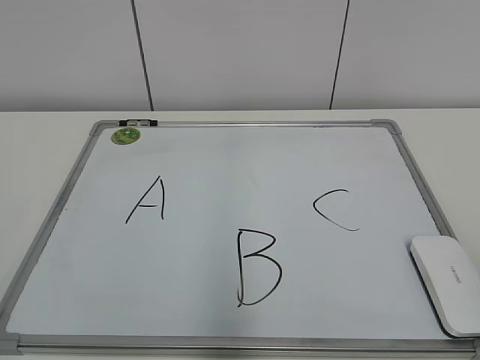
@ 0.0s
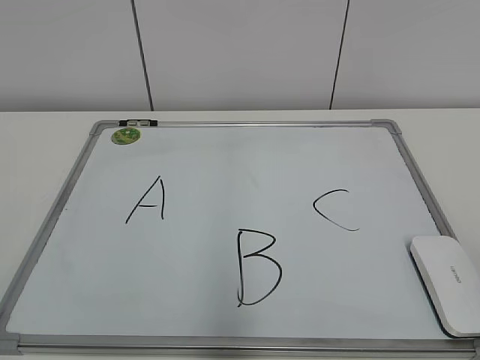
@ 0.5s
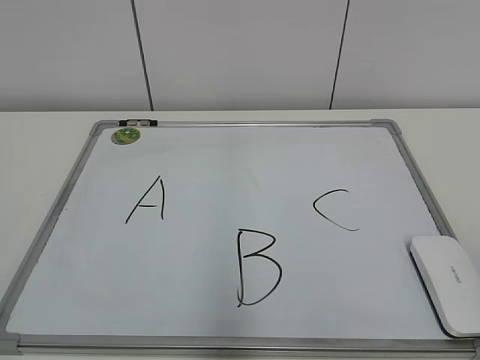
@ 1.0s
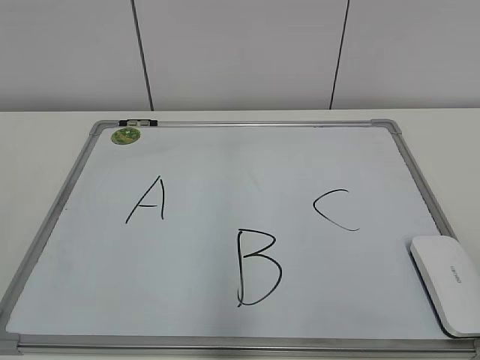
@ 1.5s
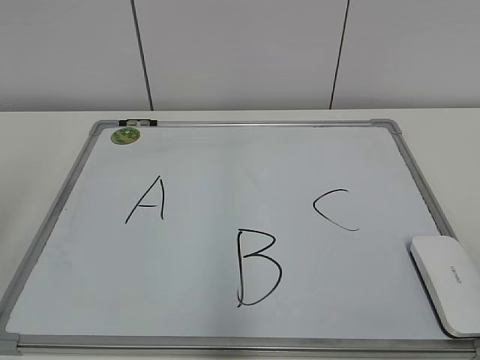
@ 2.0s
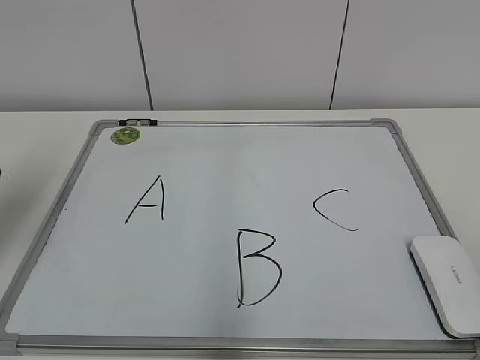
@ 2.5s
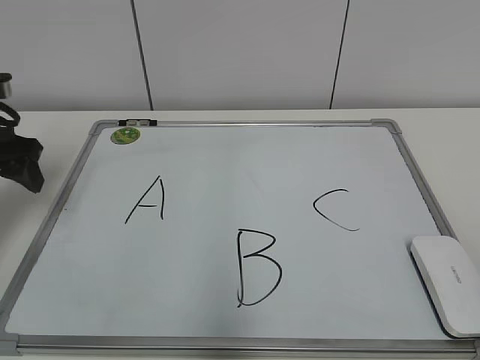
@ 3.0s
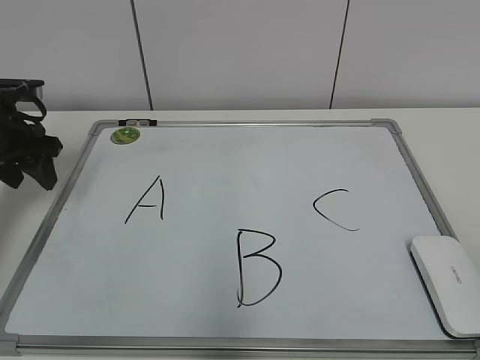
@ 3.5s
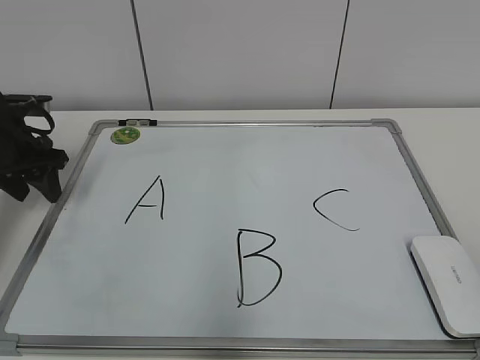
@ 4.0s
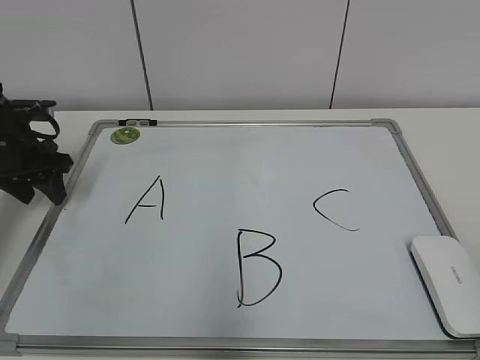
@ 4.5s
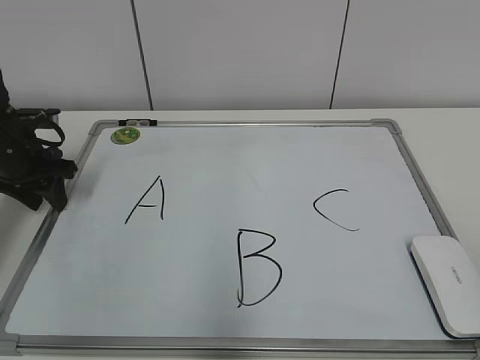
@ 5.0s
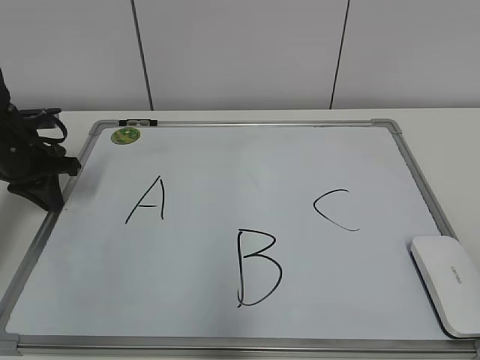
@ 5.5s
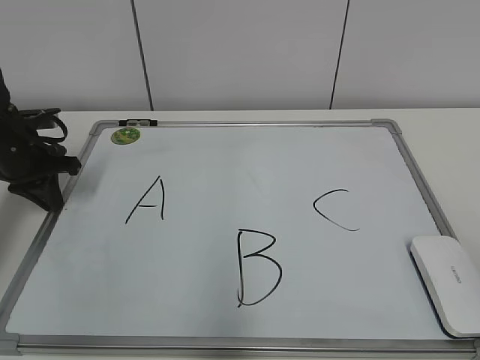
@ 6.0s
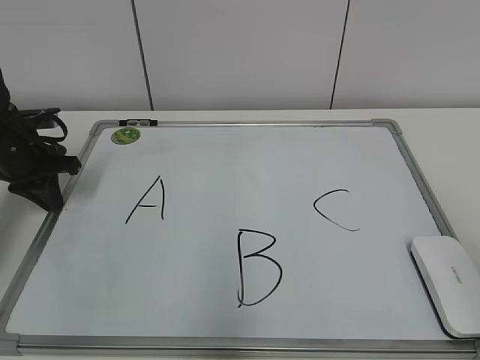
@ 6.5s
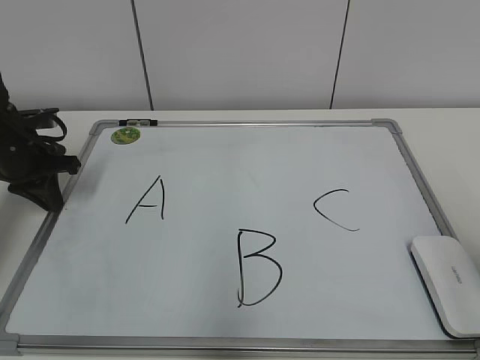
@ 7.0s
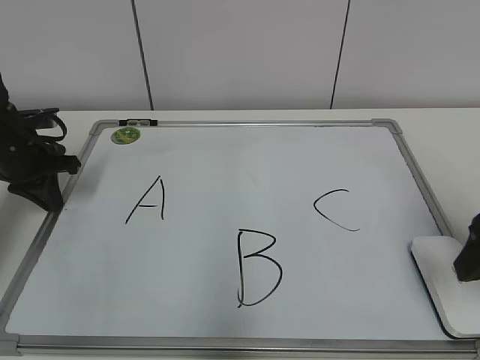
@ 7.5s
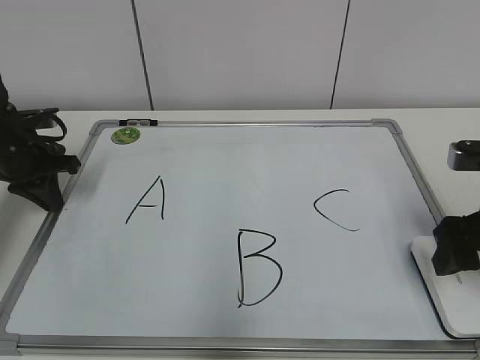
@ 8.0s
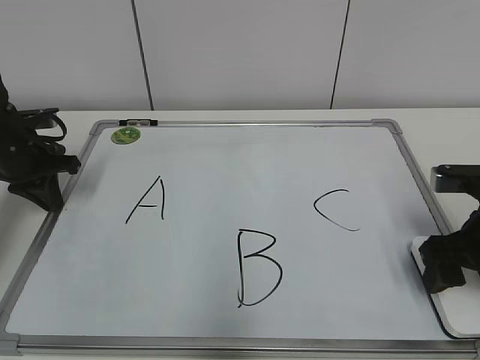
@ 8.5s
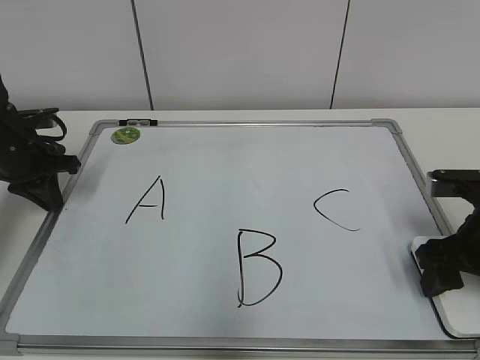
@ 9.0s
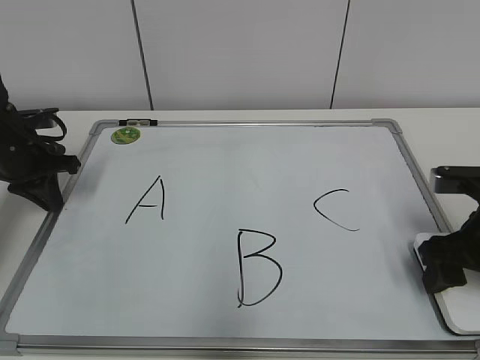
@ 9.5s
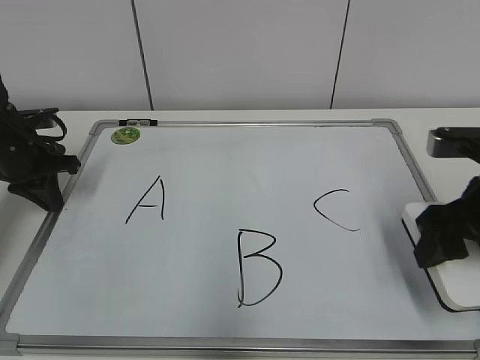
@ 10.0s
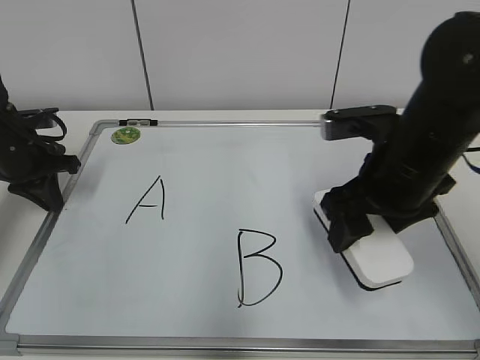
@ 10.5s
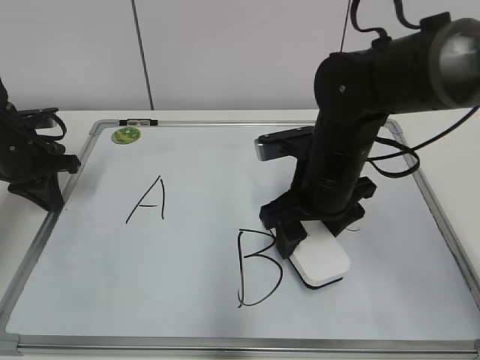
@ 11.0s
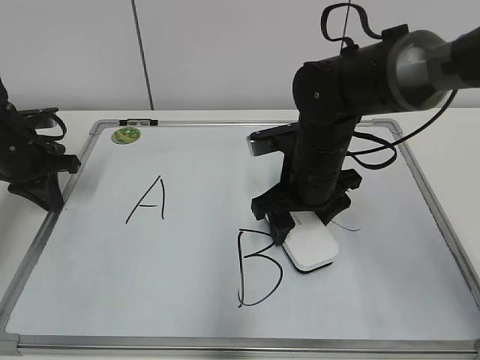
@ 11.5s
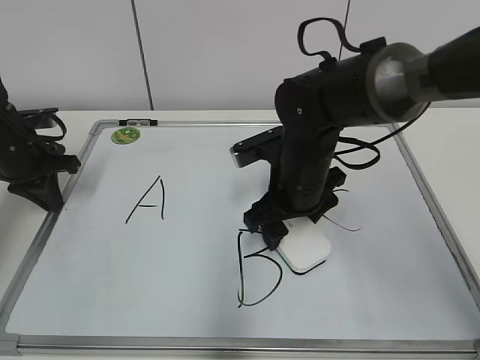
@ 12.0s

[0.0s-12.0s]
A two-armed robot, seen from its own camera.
Task of the whole recording: pick up the eraser on the blackboard and erase the letter "B".
Step, 0.0s to 6.5s: Hold the drawing board steady with your left hand.
Step, 7.0s to 9.0s: Grab the eraser with your right hand.
2.0s to 4.0s: The left gripper moves forward and downward, some 30 cm.
4.0s to 6.0s: The left gripper closes.
6.0s to 8.0s: The right gripper travels forward and downward by some 30 cm, and opens its fingers.
8.0s to 10.0s: The right gripper closes its fingers.
10.0s to 12.0s: The right gripper is displaced to the left and forward by approximately 20 cm.

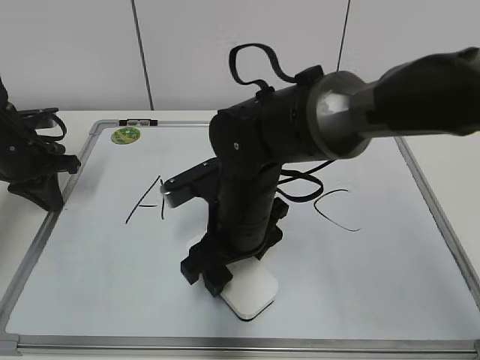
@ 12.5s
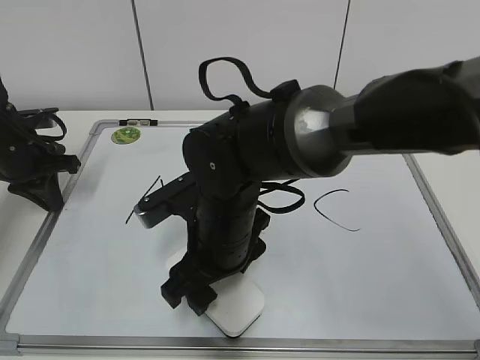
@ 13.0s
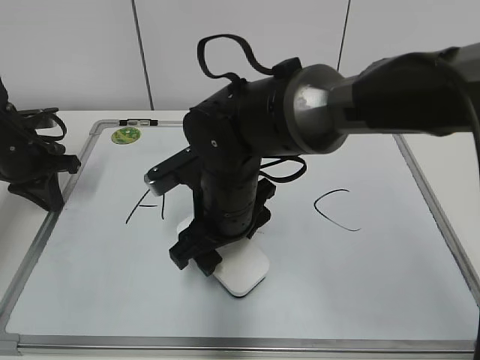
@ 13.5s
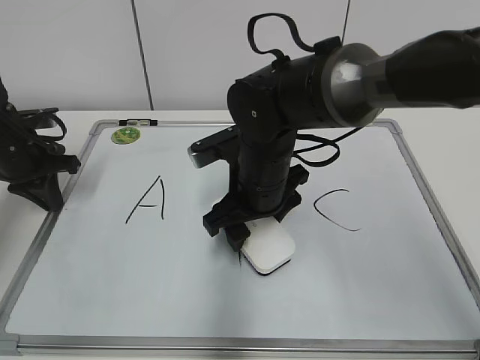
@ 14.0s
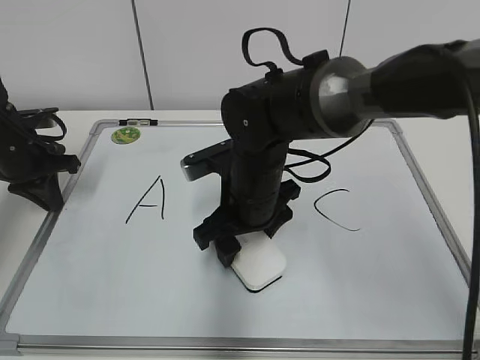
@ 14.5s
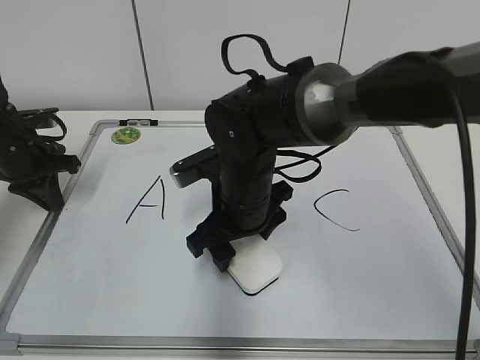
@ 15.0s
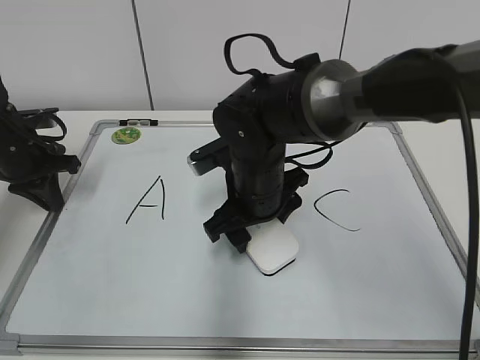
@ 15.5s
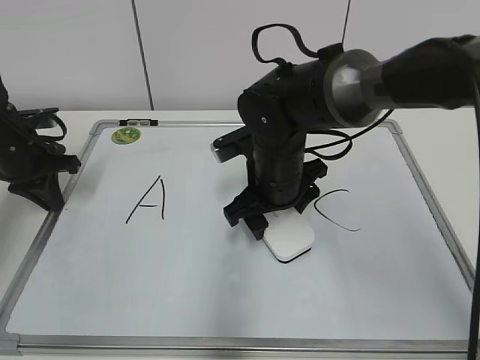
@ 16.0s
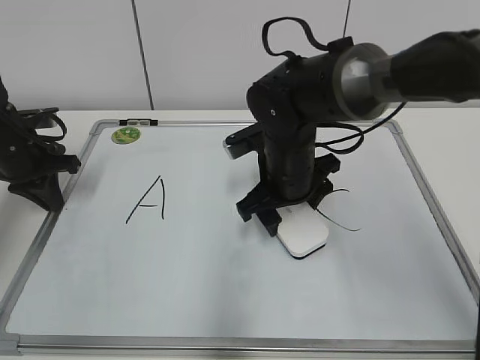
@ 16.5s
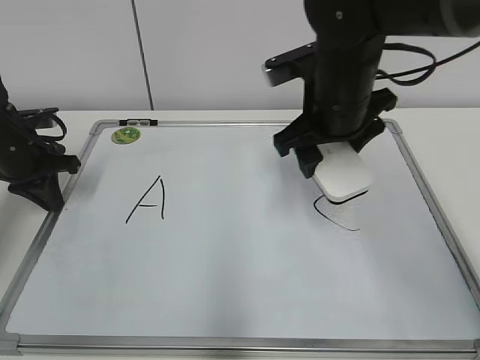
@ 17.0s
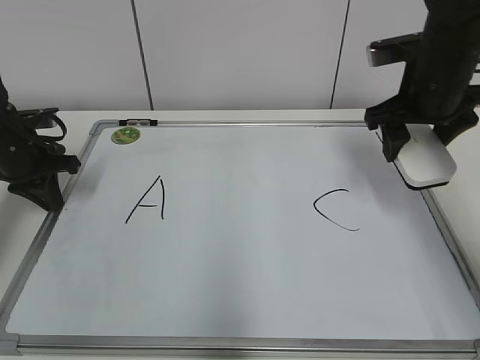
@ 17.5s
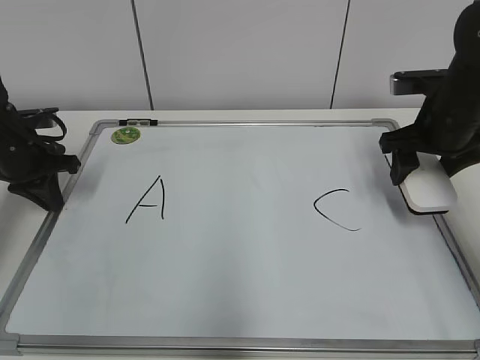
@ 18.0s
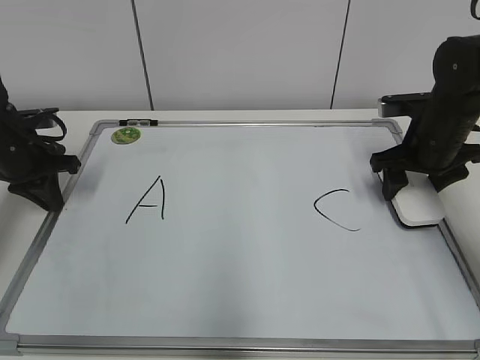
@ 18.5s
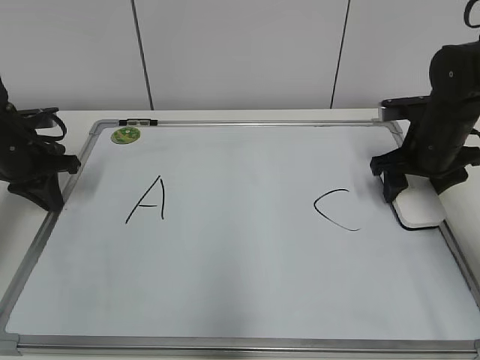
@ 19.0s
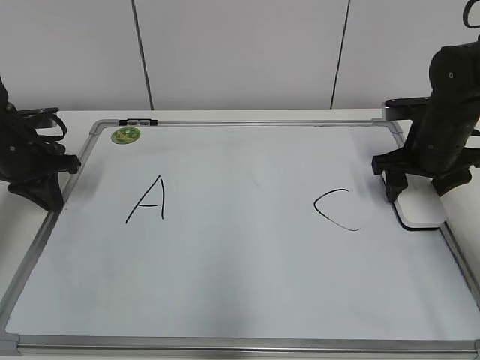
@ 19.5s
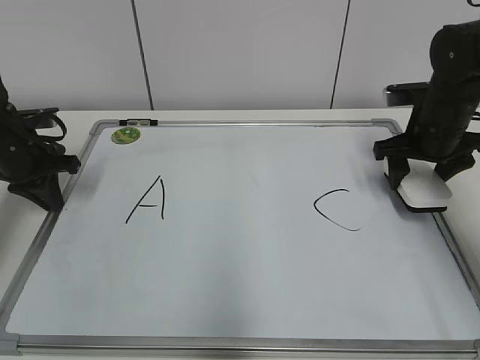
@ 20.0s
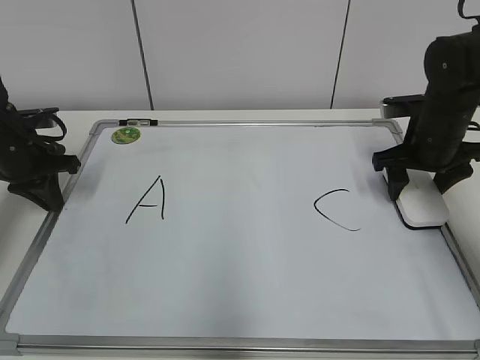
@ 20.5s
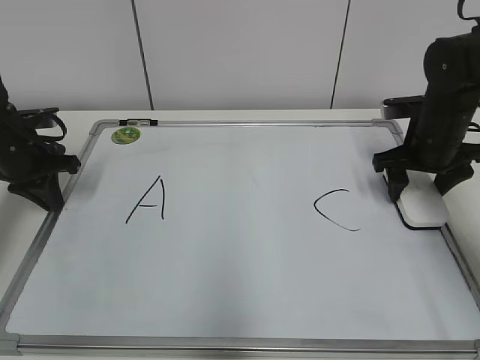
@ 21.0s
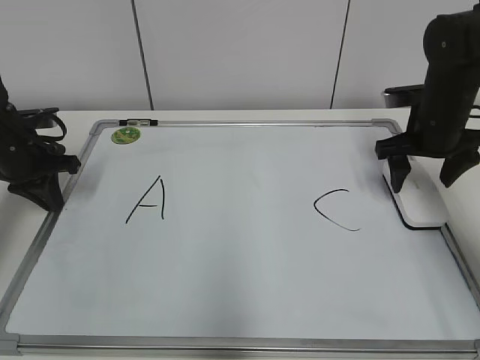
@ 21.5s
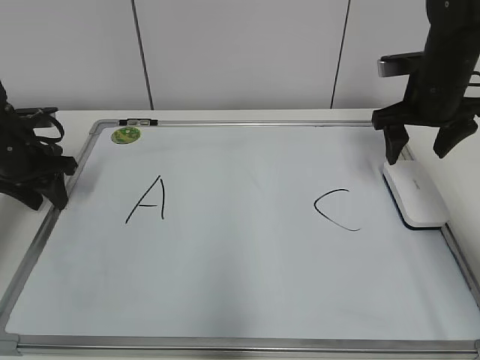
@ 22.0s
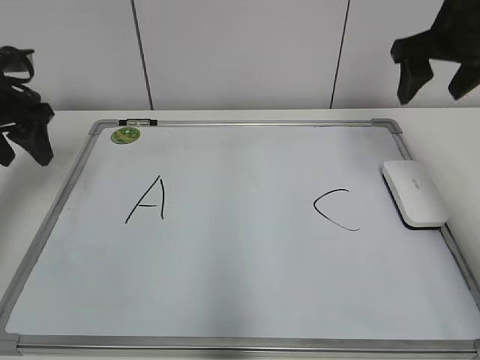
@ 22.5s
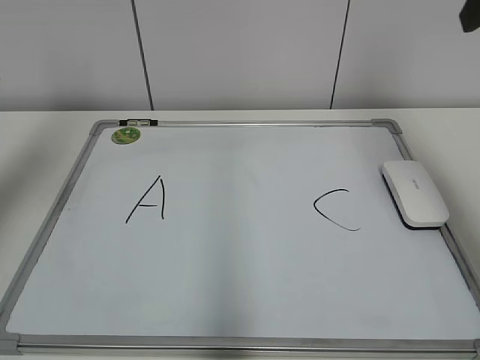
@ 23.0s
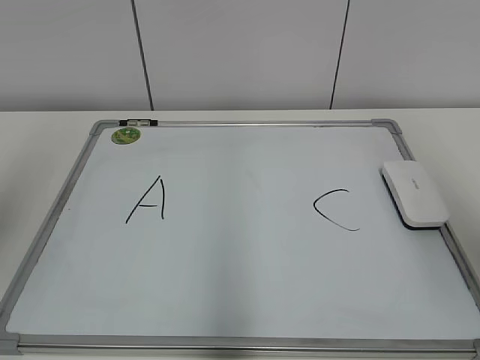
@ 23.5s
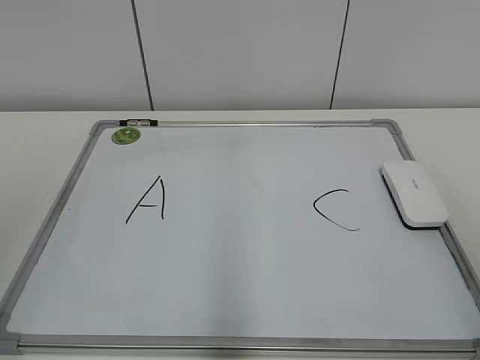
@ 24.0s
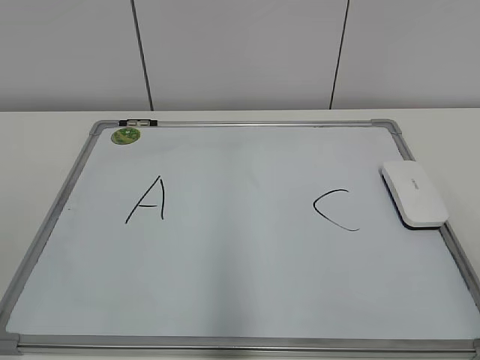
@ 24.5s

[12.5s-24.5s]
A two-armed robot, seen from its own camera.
Task of the whole recording: pick up the eraser on the blackboard and erase the letter "B".
Step, 12.5s to 16.0s: Erase the letter B with your right hand.
Step, 16.5s to 19.0s: Put down the eraser with your right hand.
12.5s to 14.5s: There are only small adjustments of the grippers.
14.5s to 16.5s: The right gripper shifts by some 5 cm.
16.5s to 18.5s: The right gripper shifts roughly 20 cm to the right.
18.5s to 20.5s: The grippers make only small movements.
20.5s to 22.5s: The right gripper moves upward, roughly 15 cm, while the left gripper shifts some 10 cm upward, and opens its fingers.
22.5s to 24.5s: The grippers both shift backward by some 35 cm.

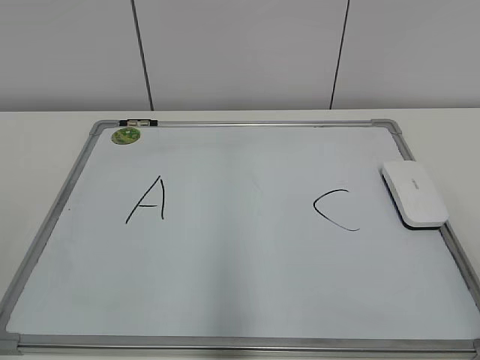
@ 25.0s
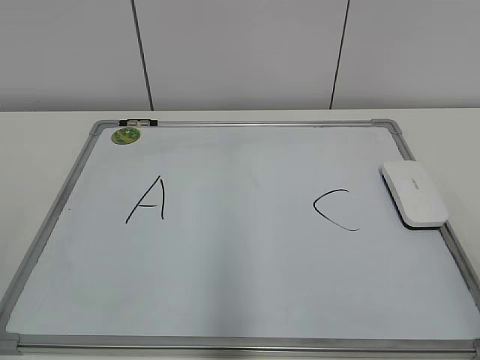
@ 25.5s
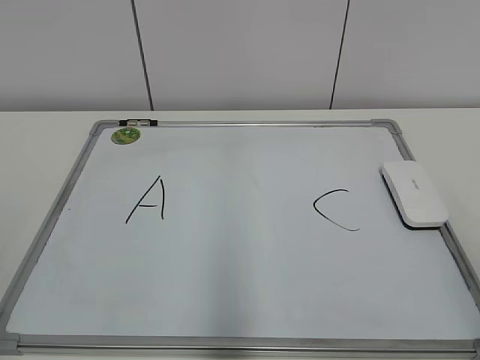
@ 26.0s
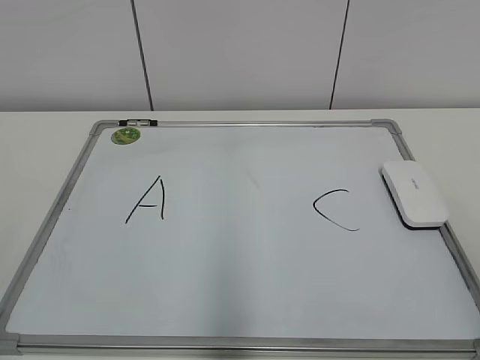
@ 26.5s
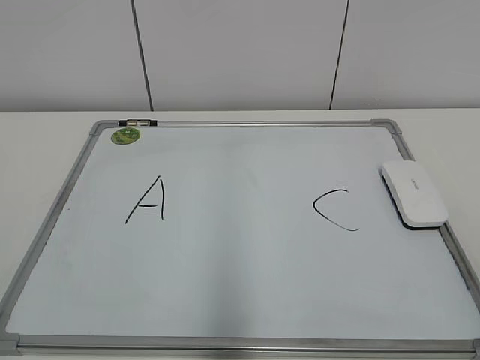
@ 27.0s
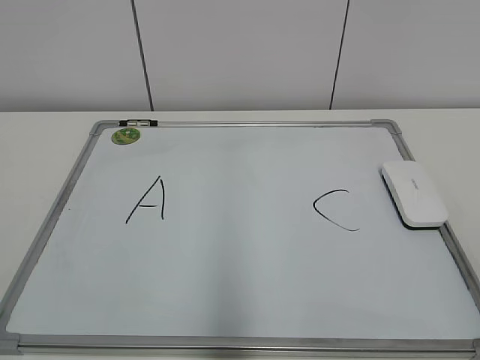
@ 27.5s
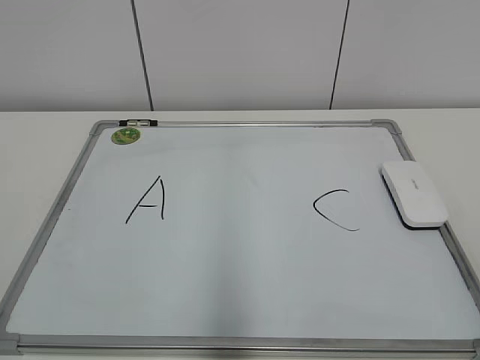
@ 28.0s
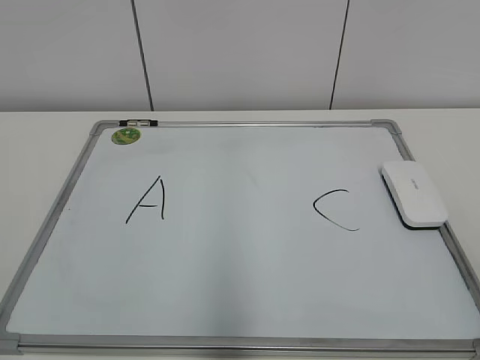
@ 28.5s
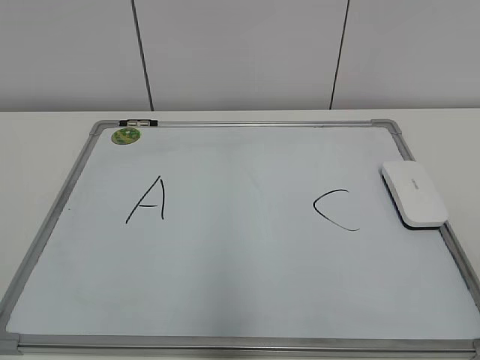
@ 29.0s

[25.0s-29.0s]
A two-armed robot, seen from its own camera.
Task of the whole recording: pick up the eraser on the blackboard and erase the letter "B".
27.0s to 29.0s: Both grippers stay put.
